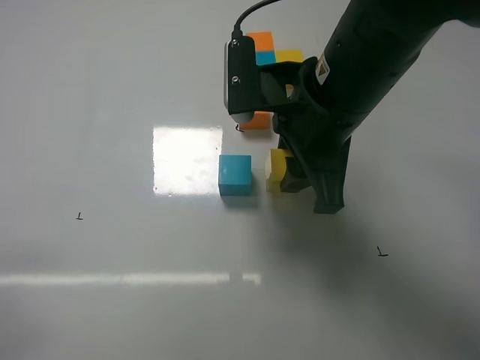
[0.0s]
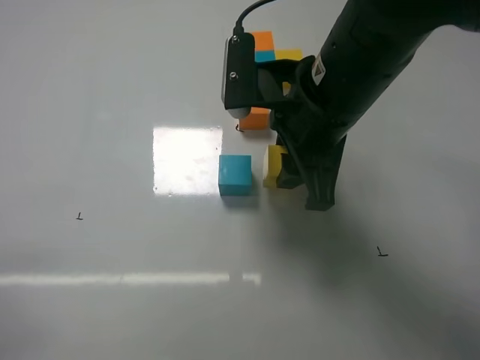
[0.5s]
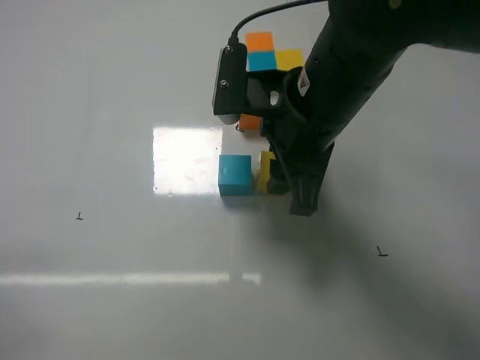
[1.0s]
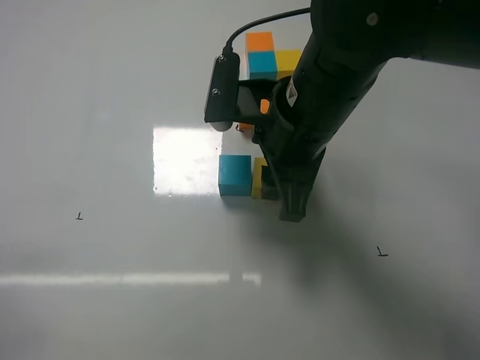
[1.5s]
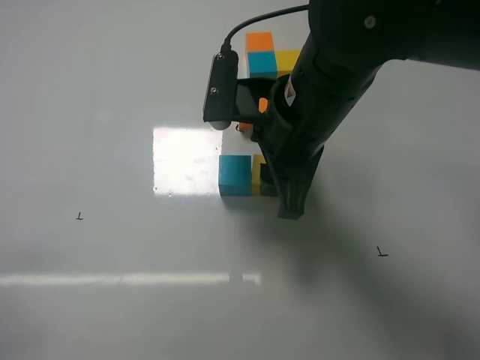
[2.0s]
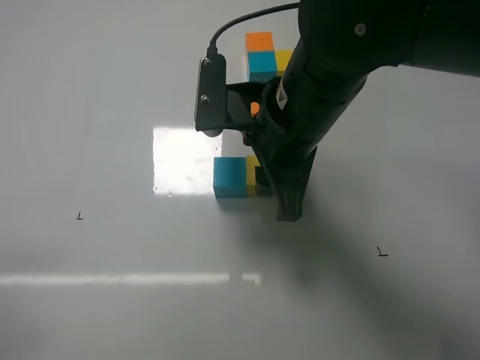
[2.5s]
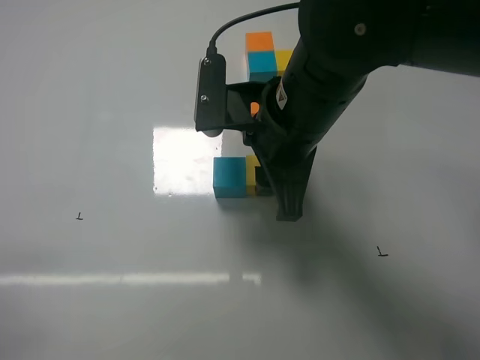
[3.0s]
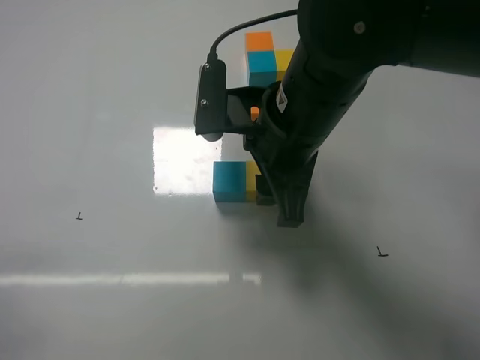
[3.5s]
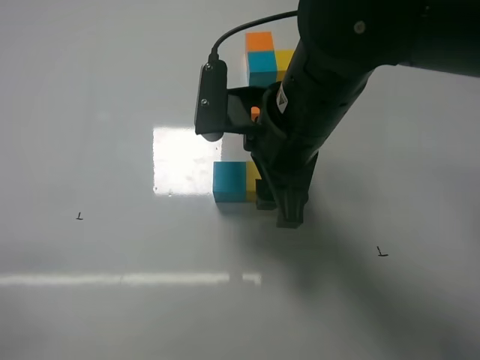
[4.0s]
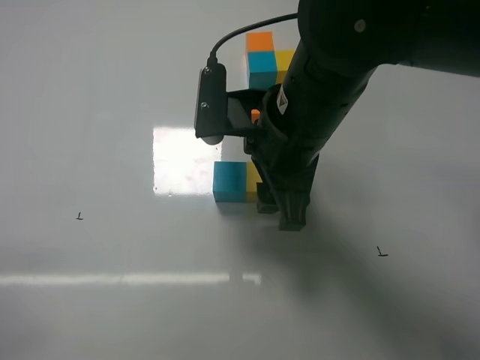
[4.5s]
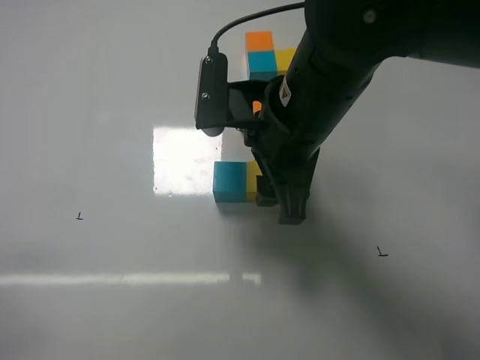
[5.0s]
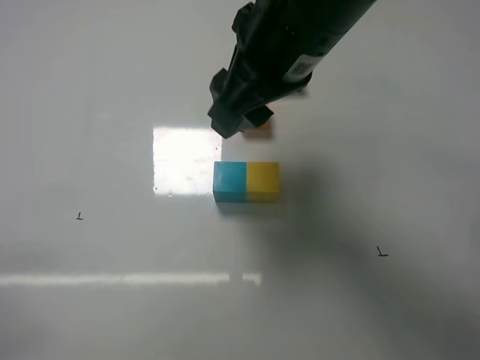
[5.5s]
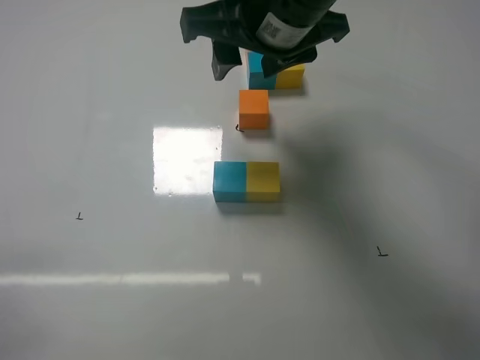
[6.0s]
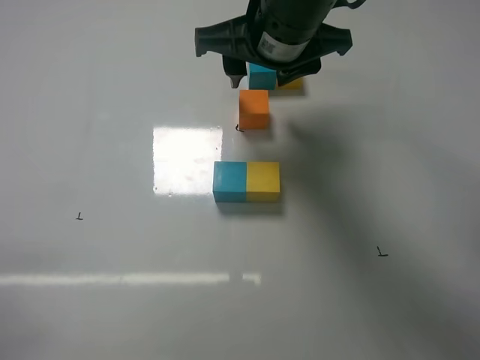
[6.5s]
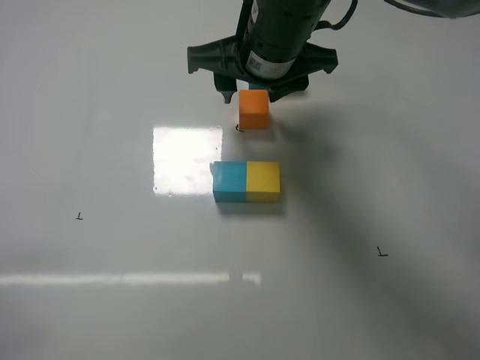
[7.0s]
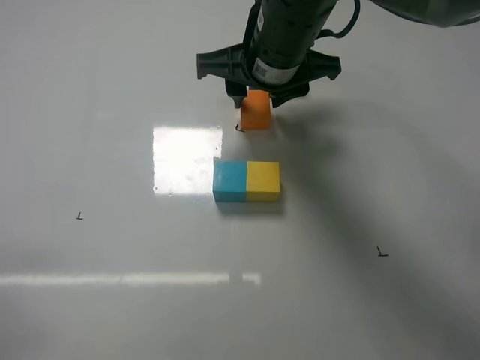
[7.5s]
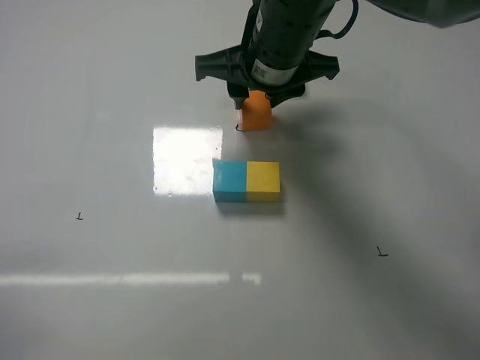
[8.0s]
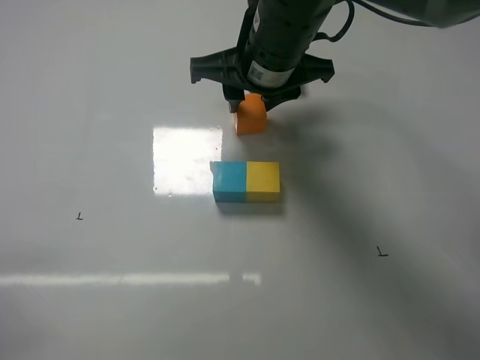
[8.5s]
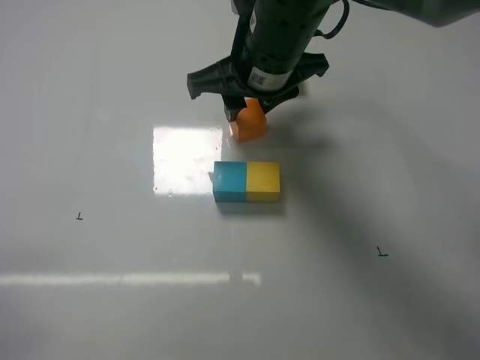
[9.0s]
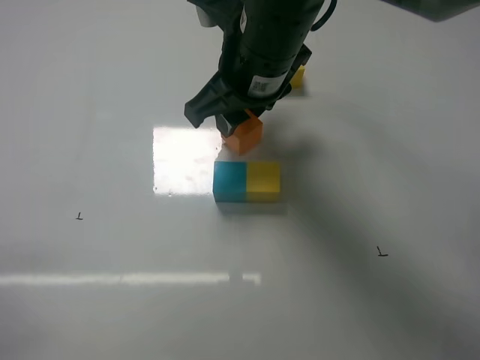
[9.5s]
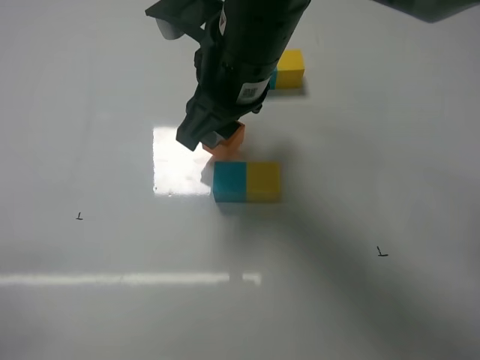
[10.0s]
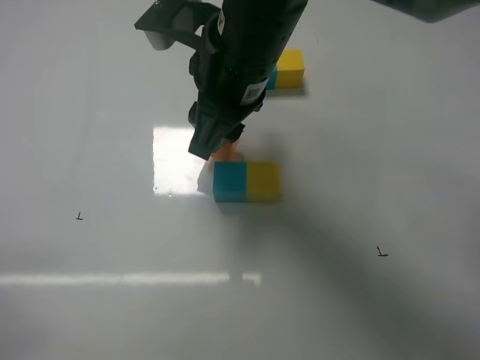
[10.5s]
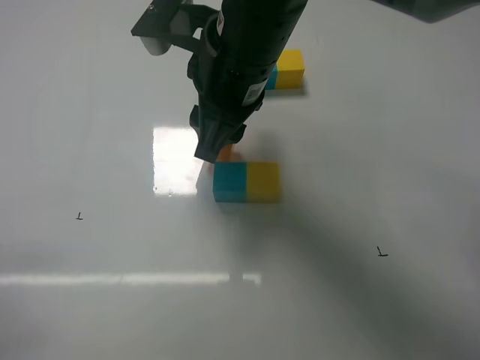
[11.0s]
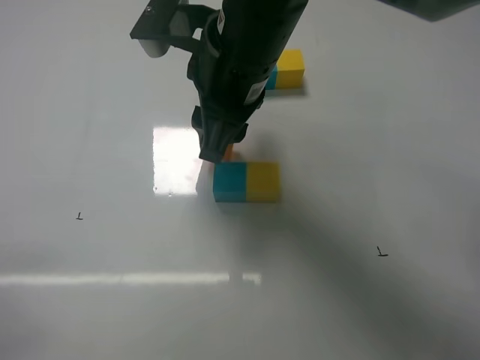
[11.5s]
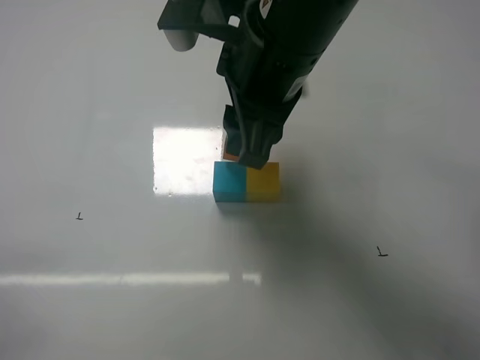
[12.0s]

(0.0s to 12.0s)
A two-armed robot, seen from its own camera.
Task of the whole recording: According to the building block template in front, assemble the scattered blocks together.
Step, 0.0s - 5.0s: Put the yellow cube on the right of the blue cube with the right gripper.
Step, 5.5s - 7.5s: Grasp the orange block with right gripper.
0.0s - 4.0s: There are only small adjustments of the grippers.
4.0s - 6.0s: The right gripper travels upward by approximately 10 cm.
6.0s - 8.0s: The right gripper shifts by roughly 5 cm.
8.0s - 10.0s: The right gripper changes place by roughly 5 cm.

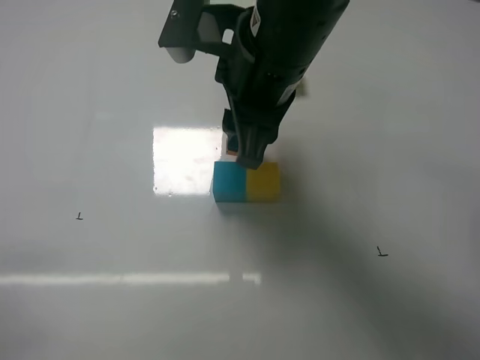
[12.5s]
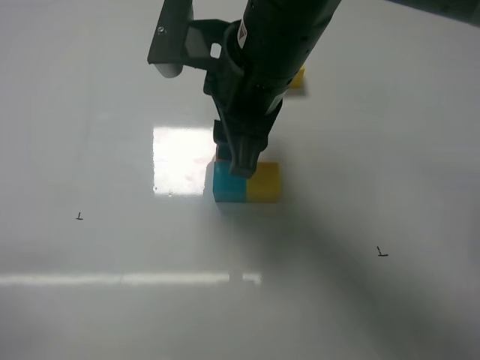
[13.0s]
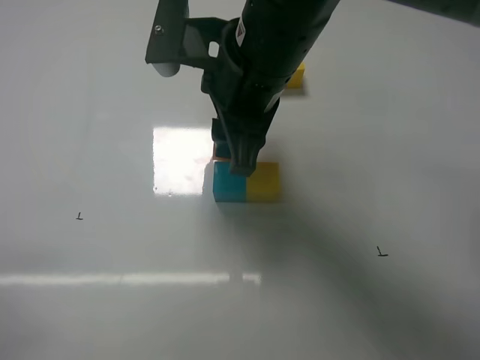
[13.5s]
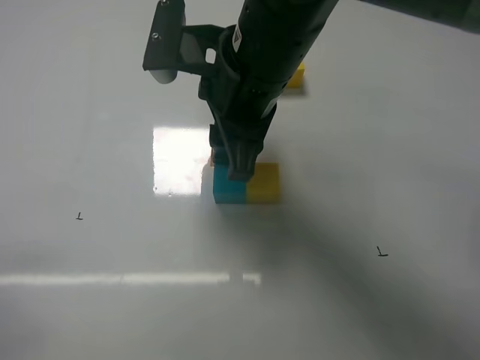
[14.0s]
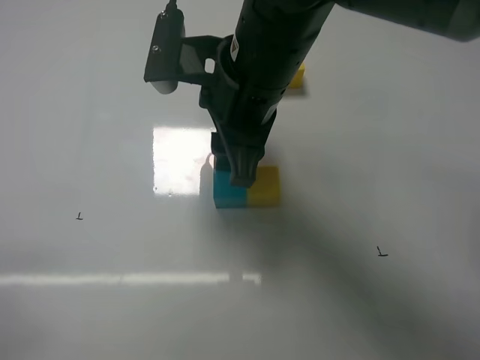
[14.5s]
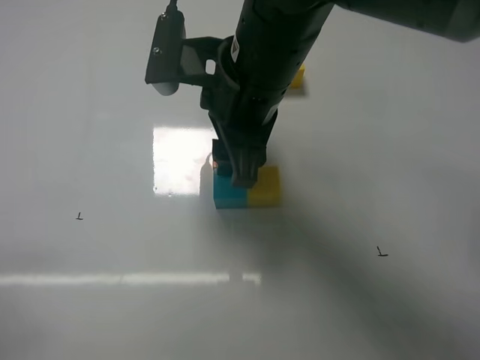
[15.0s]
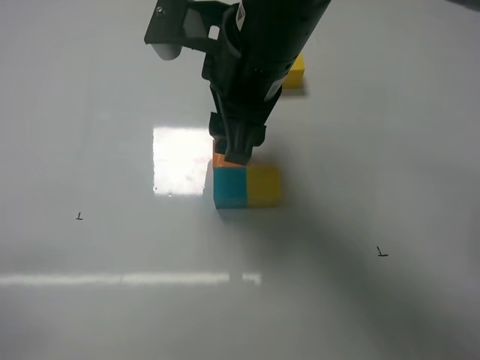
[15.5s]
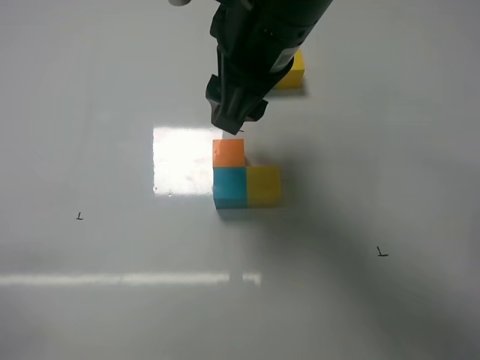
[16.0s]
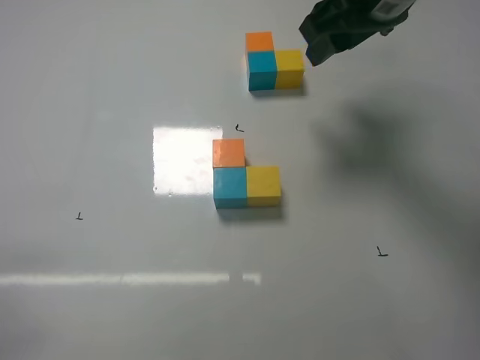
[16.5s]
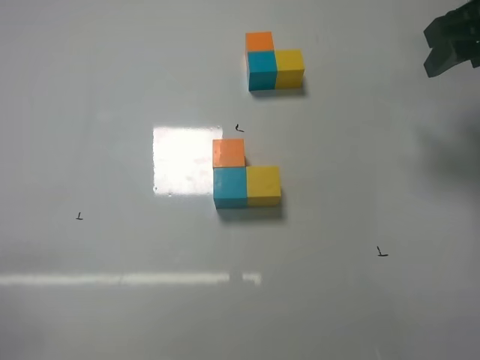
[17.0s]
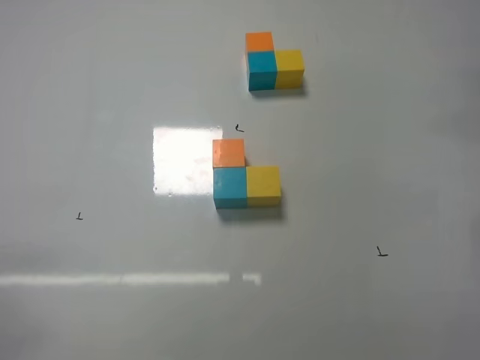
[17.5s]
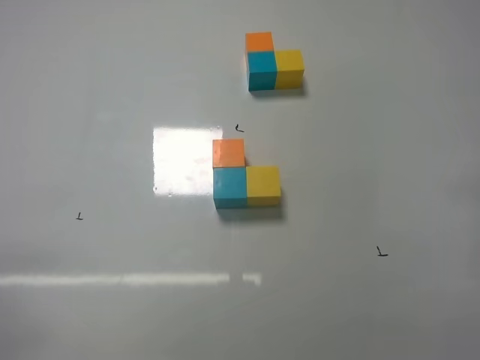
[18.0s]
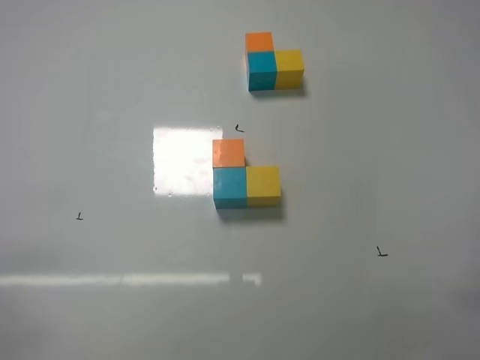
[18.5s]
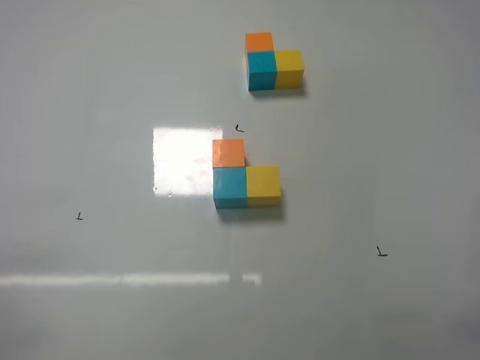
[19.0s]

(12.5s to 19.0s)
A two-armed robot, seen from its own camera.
Task of the whole recording: According to the building block template in front, assemble the scattered blocks together.
Step, 12.5s - 15.0s: Put the orange cube on the front of the blue cube with the right gripper.
12.5s - 14.5s: The grippers make only small movements.
14.5s - 17.0s: The right gripper moves to the right, approximately 25 cm.
17.0s - 19.0s: The right gripper moves backward and downward, some 35 cm.
